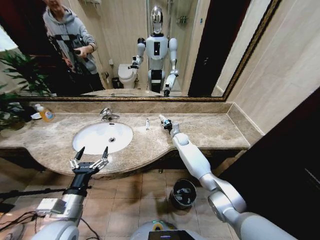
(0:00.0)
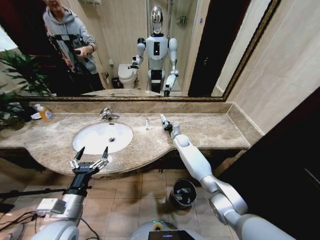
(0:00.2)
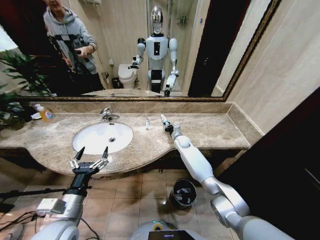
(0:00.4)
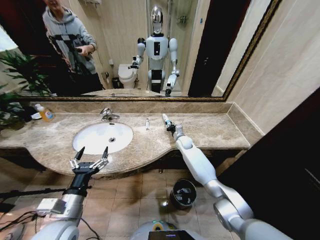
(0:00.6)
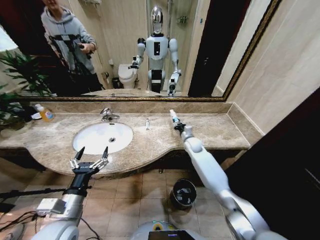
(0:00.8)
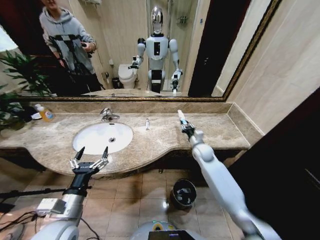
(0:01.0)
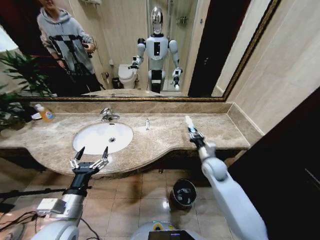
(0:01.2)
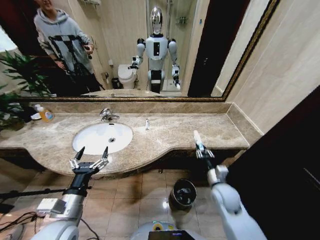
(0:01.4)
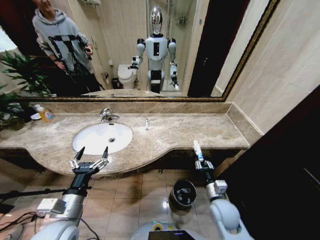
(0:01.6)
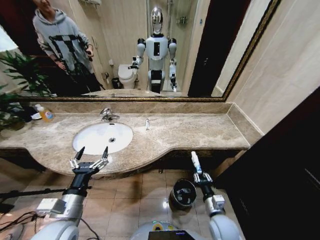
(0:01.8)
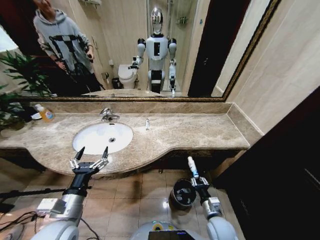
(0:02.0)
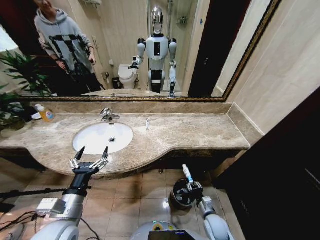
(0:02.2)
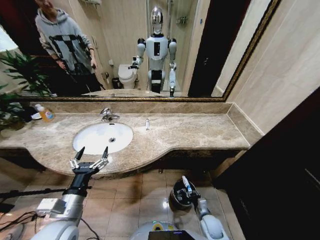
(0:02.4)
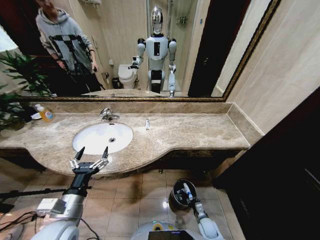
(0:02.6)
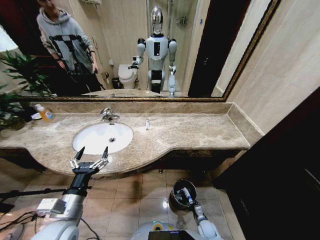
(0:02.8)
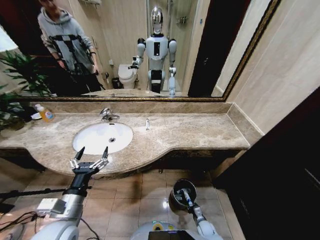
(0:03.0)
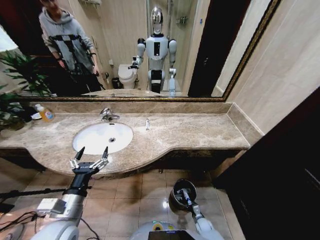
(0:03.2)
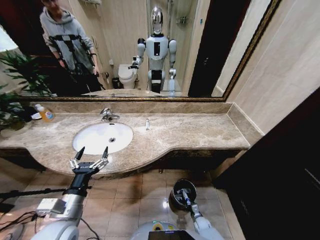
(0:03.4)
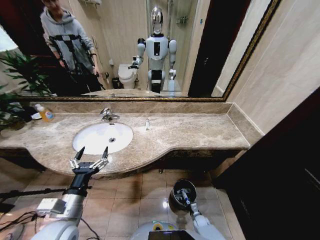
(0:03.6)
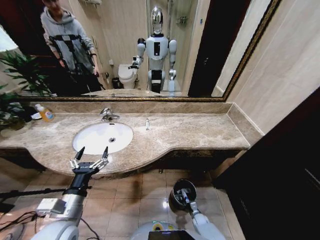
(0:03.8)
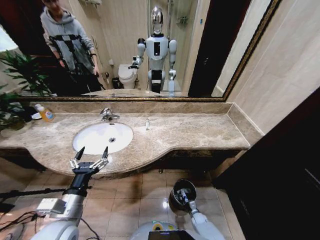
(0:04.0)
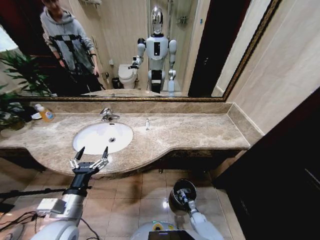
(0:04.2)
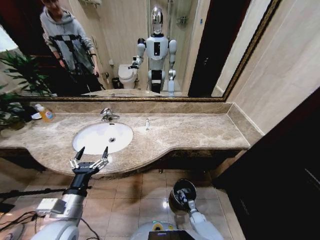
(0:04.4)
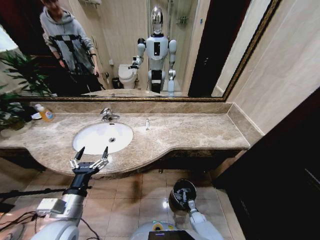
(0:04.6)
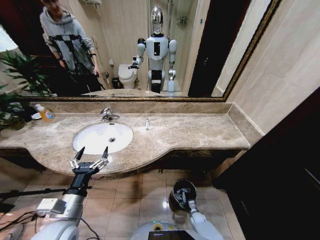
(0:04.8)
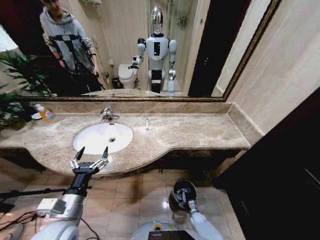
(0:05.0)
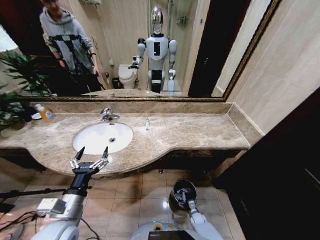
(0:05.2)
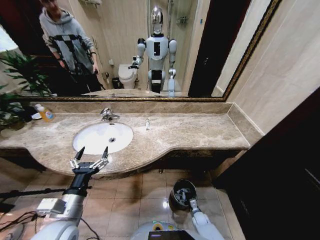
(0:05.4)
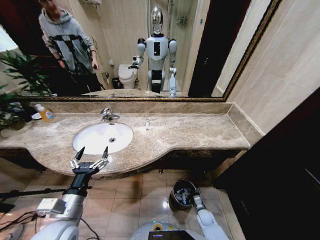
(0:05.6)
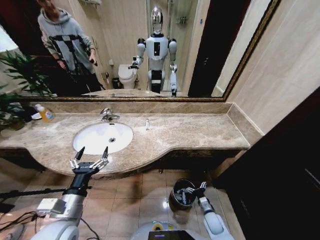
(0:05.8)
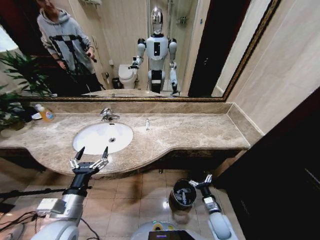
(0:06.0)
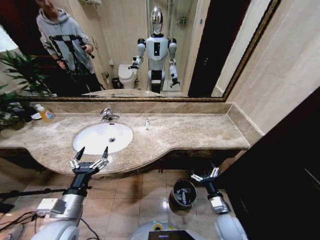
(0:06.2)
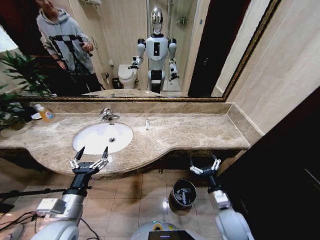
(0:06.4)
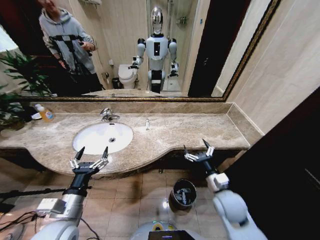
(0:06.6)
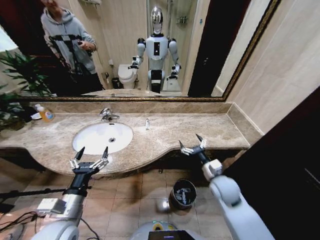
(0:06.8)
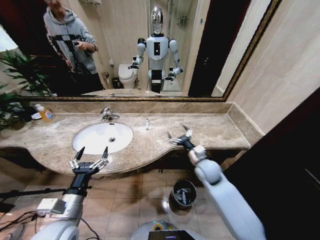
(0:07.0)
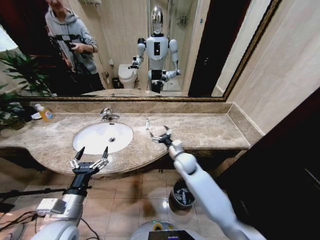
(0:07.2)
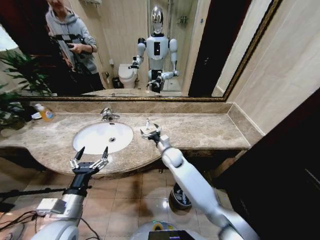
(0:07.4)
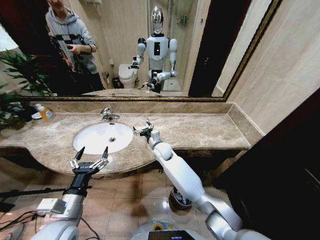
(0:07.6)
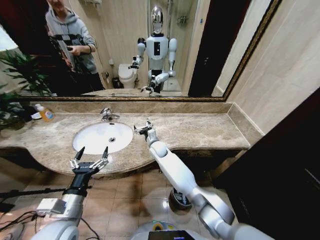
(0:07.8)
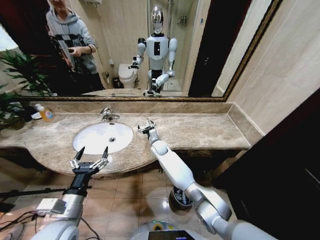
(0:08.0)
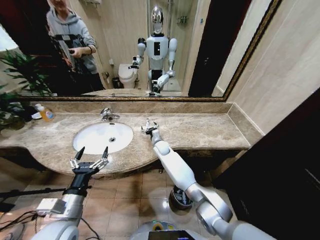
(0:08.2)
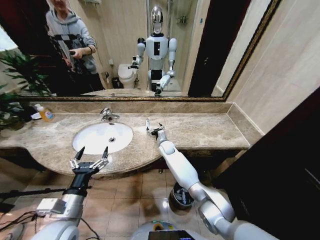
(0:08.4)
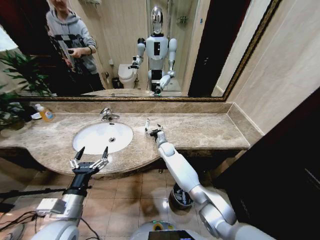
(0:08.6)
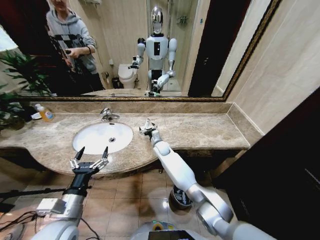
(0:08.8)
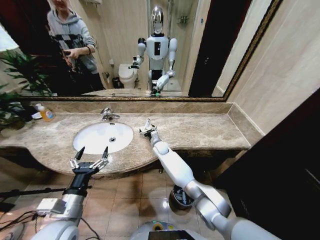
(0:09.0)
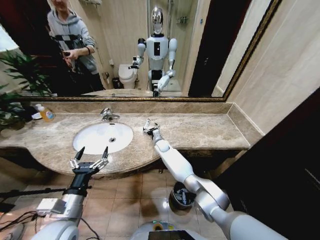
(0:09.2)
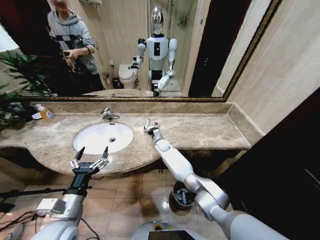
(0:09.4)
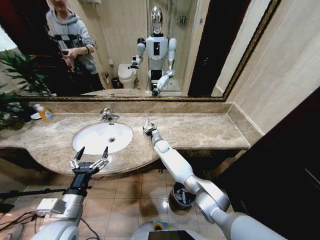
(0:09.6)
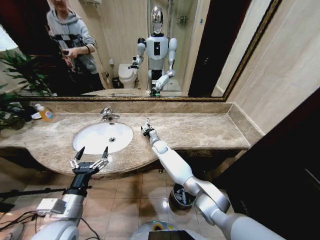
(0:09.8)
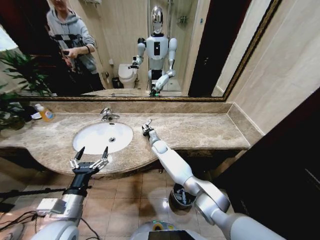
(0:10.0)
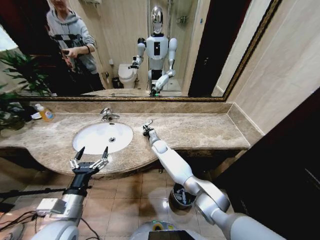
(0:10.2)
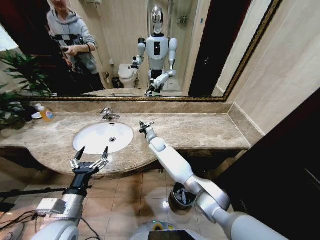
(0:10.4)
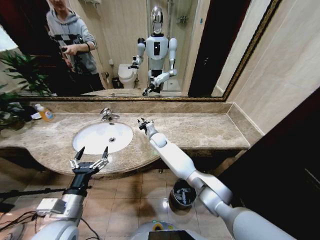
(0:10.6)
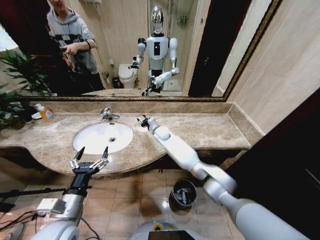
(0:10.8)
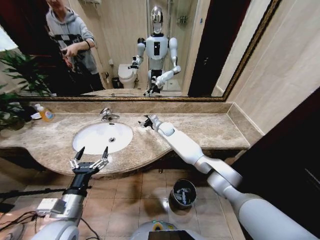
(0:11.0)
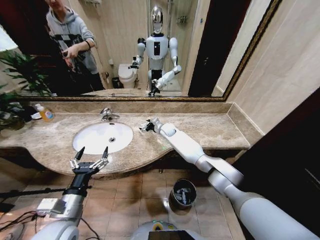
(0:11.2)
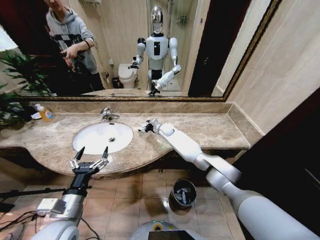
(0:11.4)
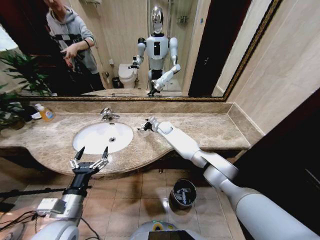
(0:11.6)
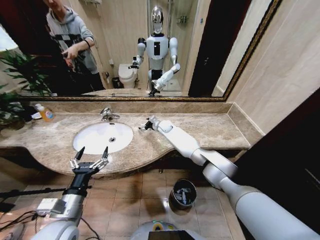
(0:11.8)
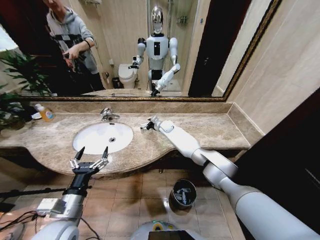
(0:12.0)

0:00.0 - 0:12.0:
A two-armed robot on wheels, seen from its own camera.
Task of the whole recording: Pick up the trash from the sink and place it in the trash bin.
0:00.0 - 0:01.6: The right gripper travels backward by about 35 cm.
0:01.6 - 0:03.0: The right gripper shifts some 30 cm downward.
0:03.0 - 0:04.4: The right gripper shifts by about 5 cm.
0:04.4 - 0:06.0: The right gripper goes some 20 cm upward, and opens.
0:06.0 - 0:07.6: The right gripper moves forward, to the left and upward, roughly 40 cm.
0:07.6 - 0:09.0: The right gripper moves downward and forward, some 10 cm.
0:09.0 - 0:10.4: The right gripper closes its fingers.
0:10.4 - 0:12.0: The right gripper travels forward, to the right and upward by some 15 cm, and opens.

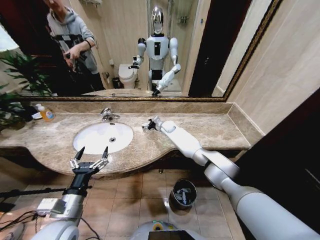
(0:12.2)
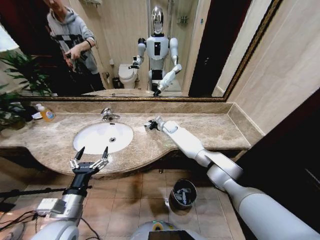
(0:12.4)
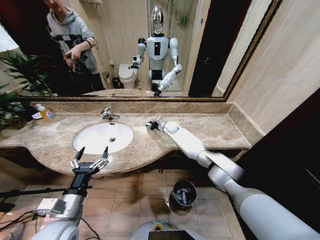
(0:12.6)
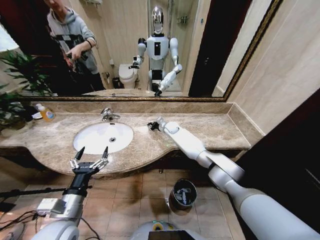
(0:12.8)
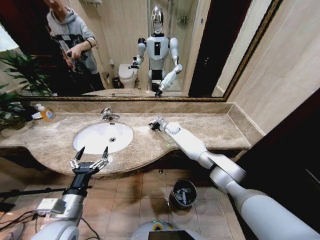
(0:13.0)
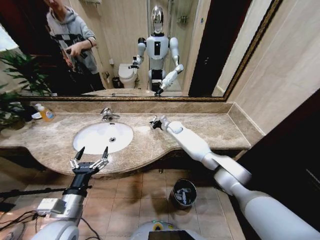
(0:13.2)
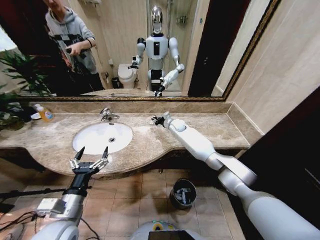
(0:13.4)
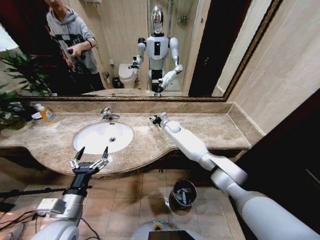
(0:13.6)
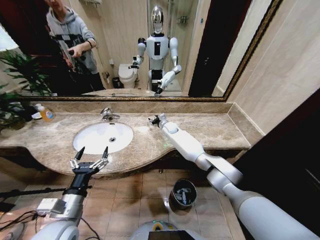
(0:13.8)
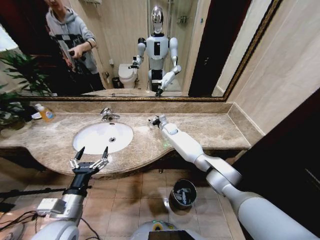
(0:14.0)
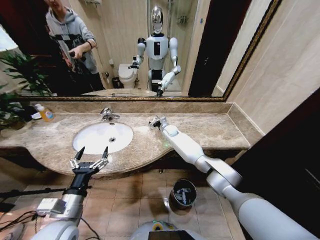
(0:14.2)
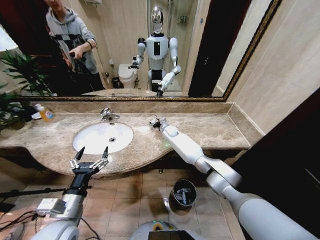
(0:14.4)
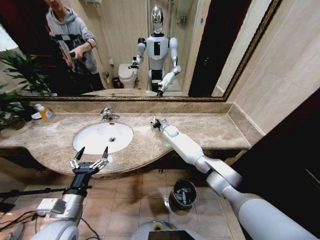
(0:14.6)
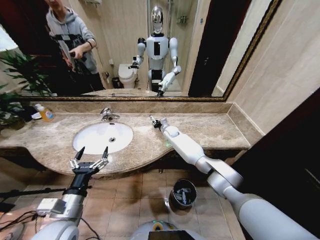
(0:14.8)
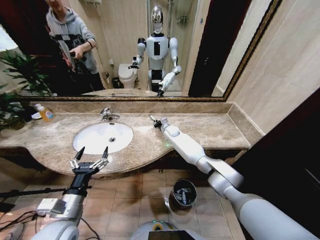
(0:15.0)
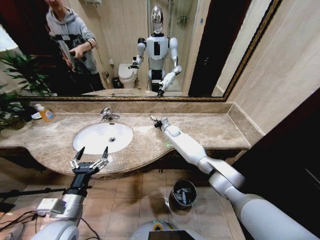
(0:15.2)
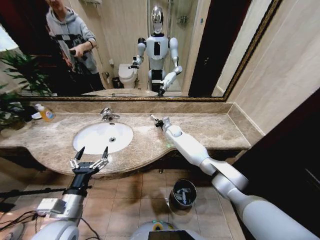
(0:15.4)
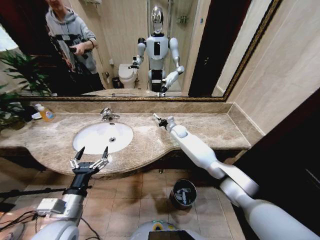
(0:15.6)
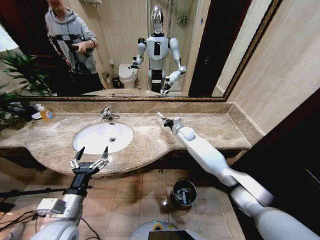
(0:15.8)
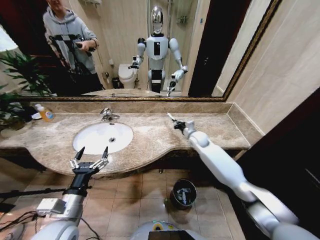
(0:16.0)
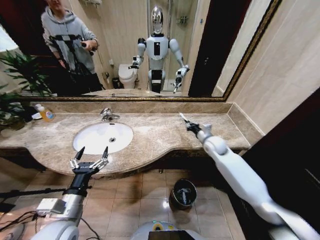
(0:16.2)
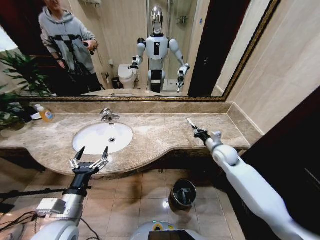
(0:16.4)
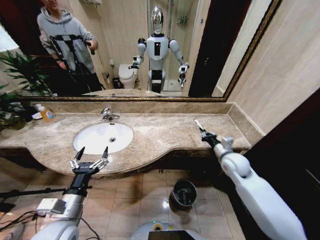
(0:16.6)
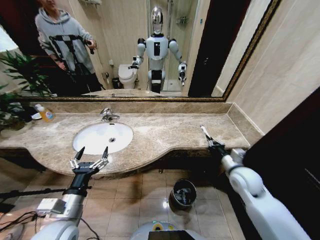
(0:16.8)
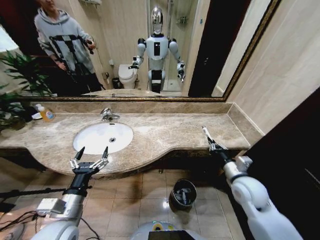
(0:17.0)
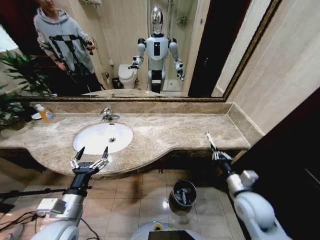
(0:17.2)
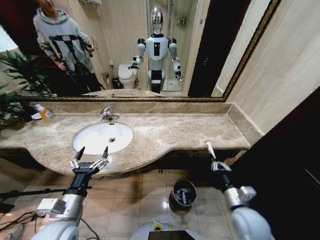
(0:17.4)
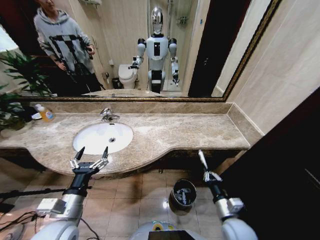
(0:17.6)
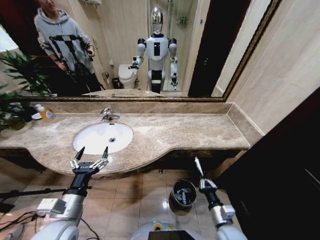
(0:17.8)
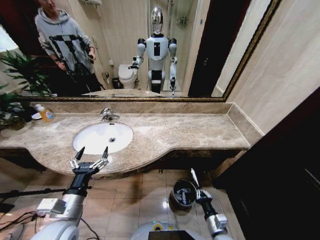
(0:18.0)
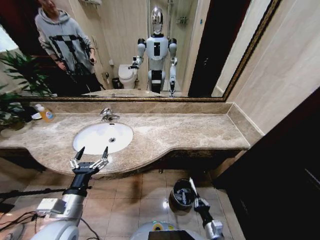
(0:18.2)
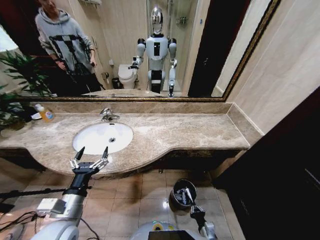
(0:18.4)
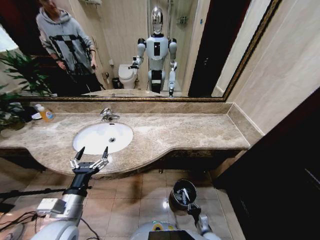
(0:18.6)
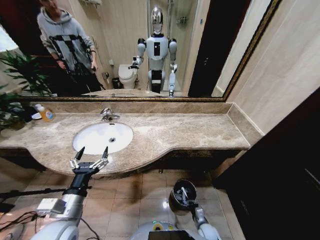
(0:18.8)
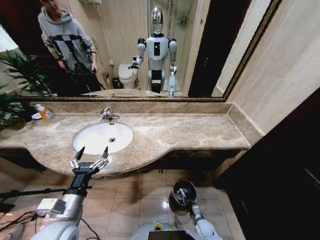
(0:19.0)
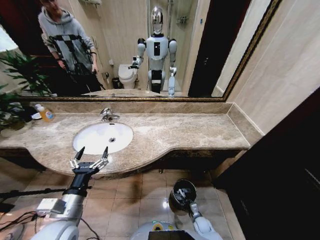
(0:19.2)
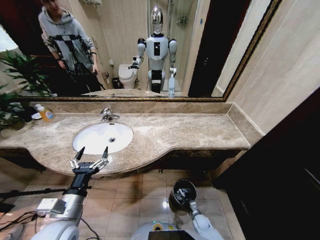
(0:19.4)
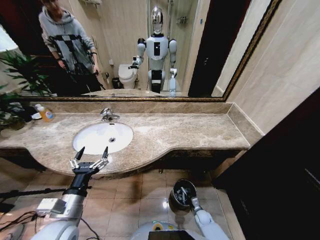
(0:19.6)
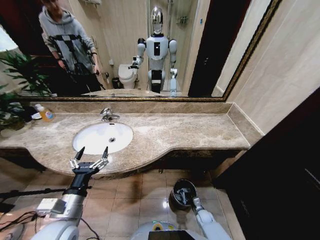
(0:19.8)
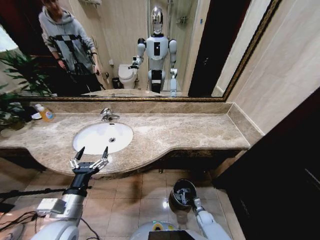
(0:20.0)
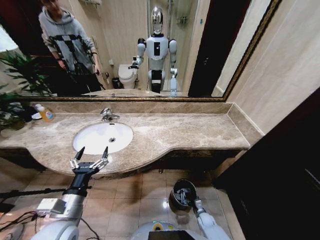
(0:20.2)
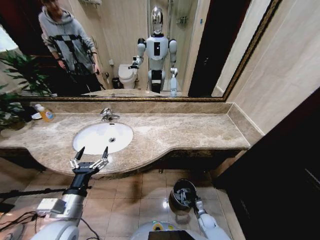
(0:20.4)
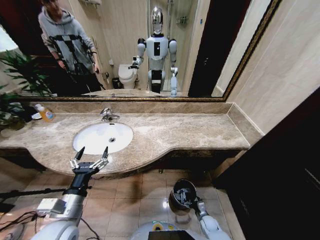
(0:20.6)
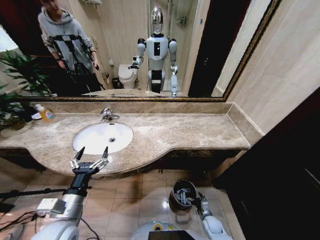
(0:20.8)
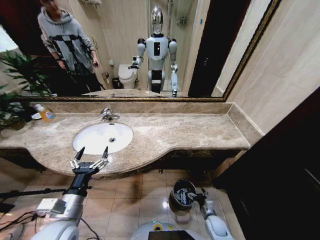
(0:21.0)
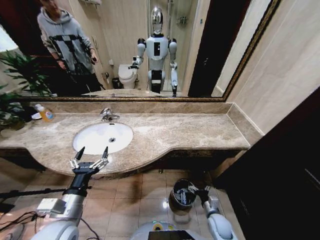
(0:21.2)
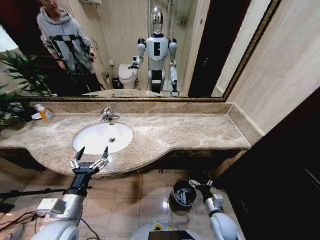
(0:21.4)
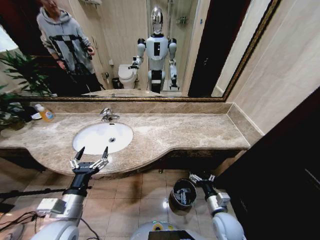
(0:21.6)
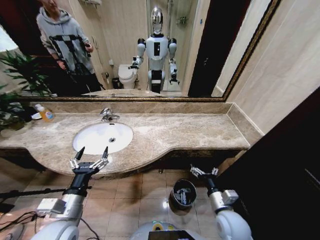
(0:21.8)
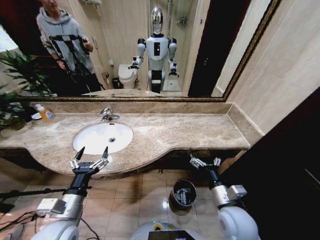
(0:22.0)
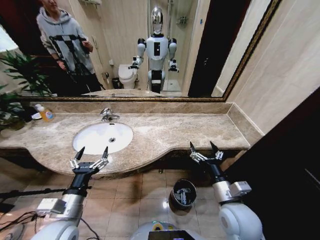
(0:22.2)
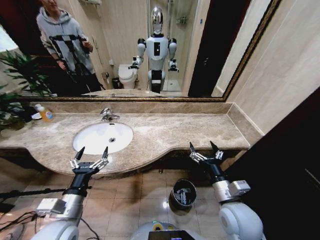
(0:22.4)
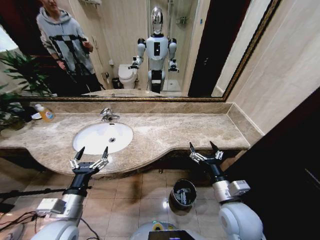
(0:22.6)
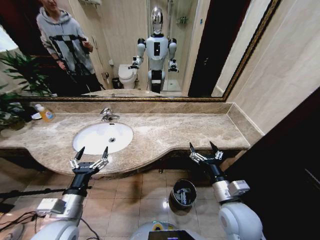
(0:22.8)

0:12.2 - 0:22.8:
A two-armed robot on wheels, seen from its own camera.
Task of the whole recording: Pick up the trash from the sink and place it in the trash bin.
0:12.2 - 0:13.8: The right gripper closes, then opens again.
0:13.8 - 0:15.2: The right gripper closes its fingers.
0:15.2 - 0:16.8: The right gripper travels backward and to the right by roughly 40 cm.
0:16.8 - 0:18.2: The right gripper is displaced downward and backward by some 35 cm.
0:18.2 - 0:19.8: The right gripper goes approximately 20 cm downward and forward.
0:19.8 - 0:21.2: The right gripper travels upward by roughly 15 cm, and opens its fingers.
0:21.2 - 0:22.8: The right gripper moves upward, roughly 25 cm.
